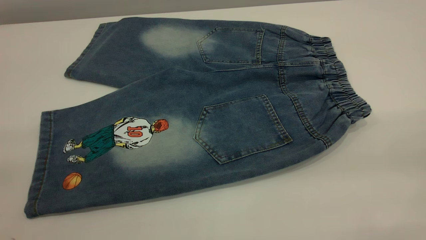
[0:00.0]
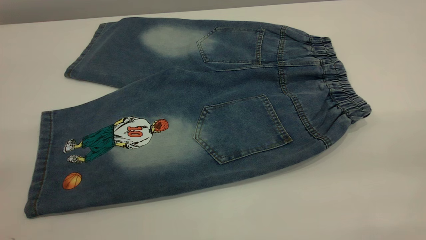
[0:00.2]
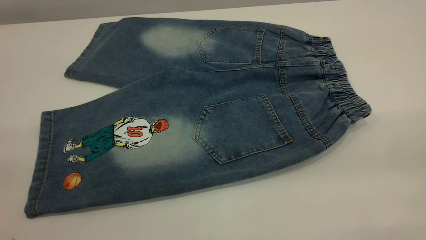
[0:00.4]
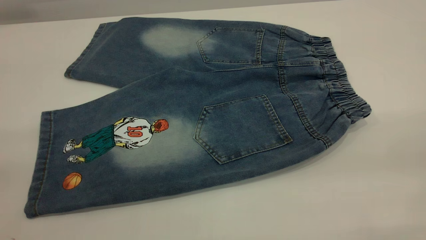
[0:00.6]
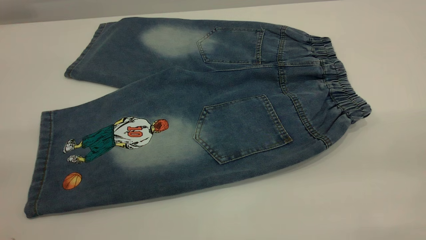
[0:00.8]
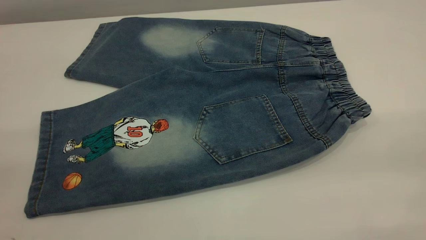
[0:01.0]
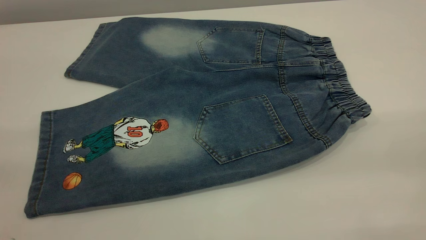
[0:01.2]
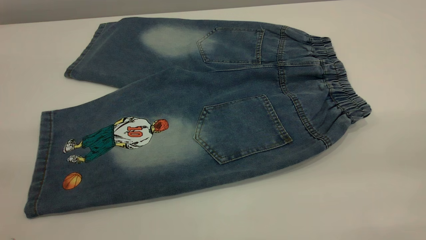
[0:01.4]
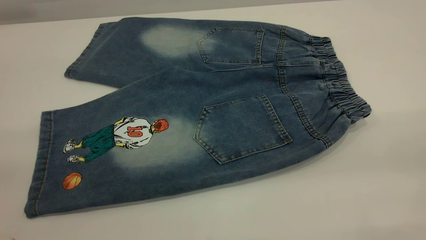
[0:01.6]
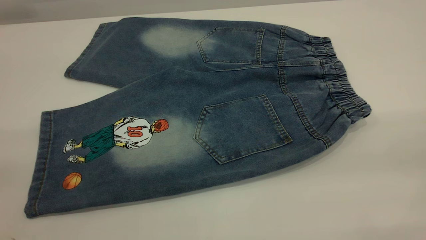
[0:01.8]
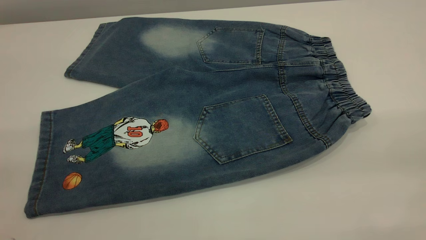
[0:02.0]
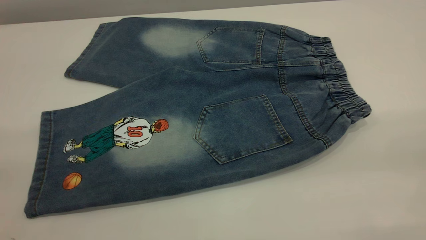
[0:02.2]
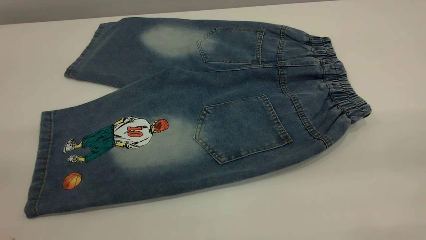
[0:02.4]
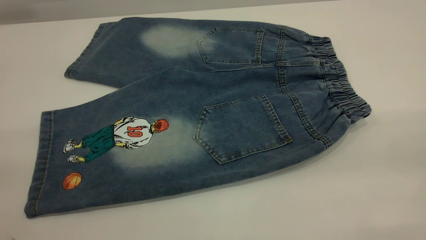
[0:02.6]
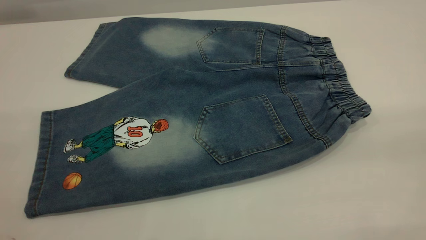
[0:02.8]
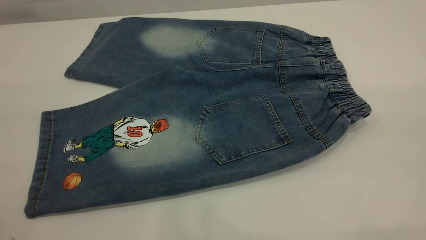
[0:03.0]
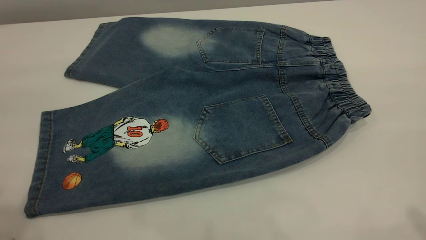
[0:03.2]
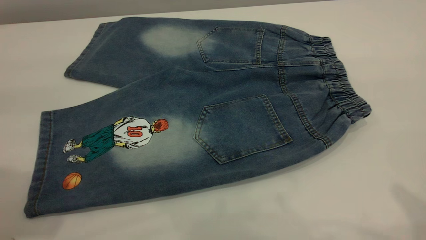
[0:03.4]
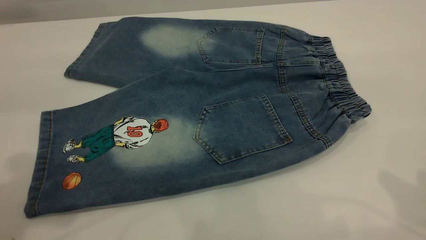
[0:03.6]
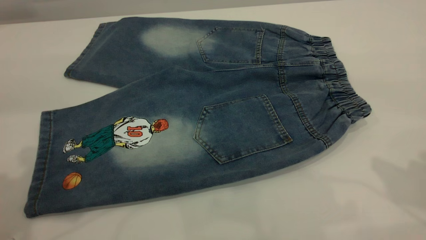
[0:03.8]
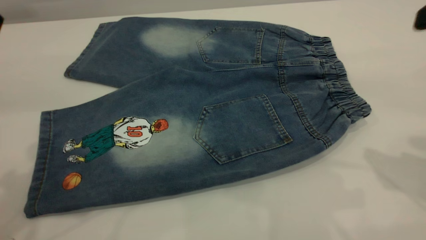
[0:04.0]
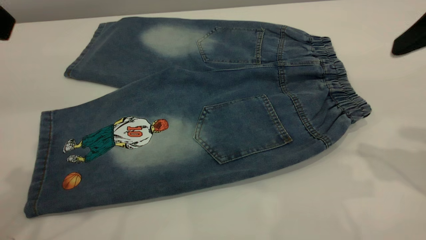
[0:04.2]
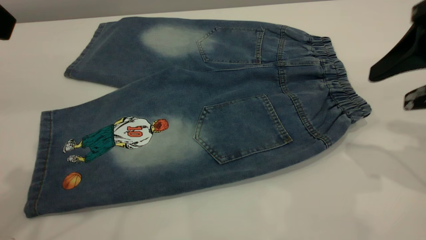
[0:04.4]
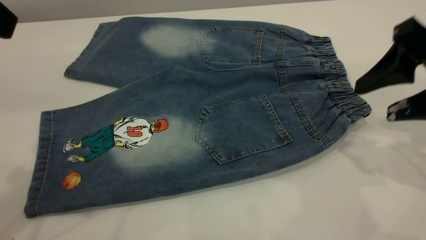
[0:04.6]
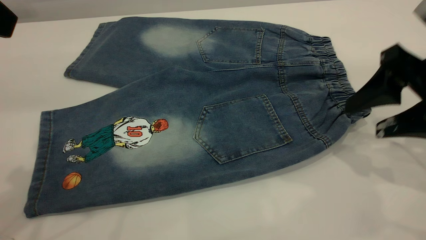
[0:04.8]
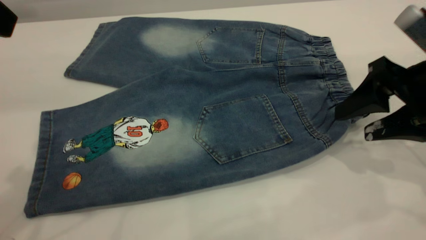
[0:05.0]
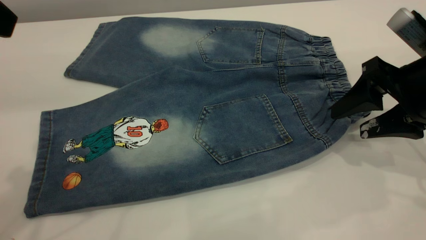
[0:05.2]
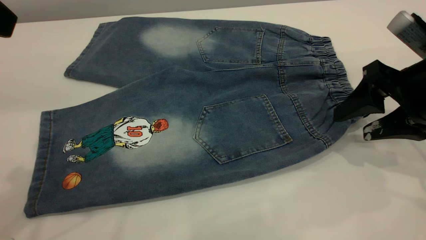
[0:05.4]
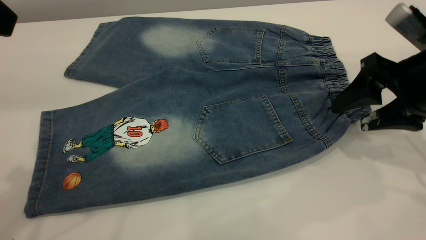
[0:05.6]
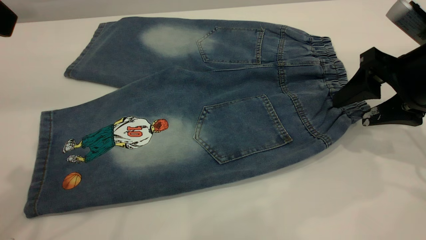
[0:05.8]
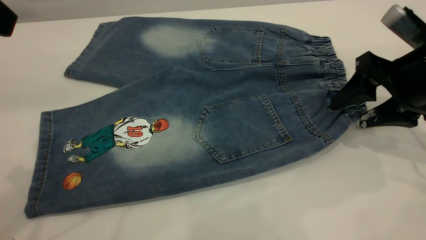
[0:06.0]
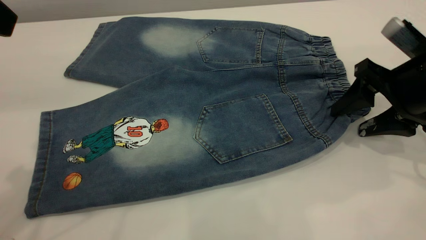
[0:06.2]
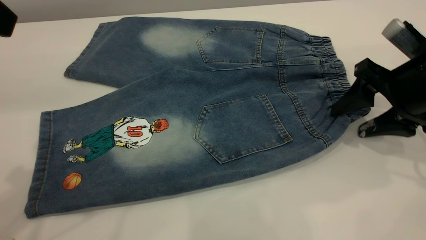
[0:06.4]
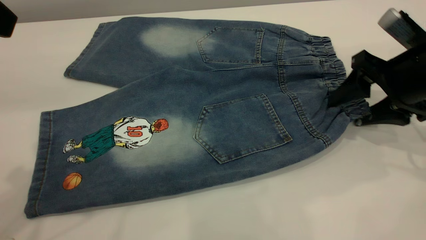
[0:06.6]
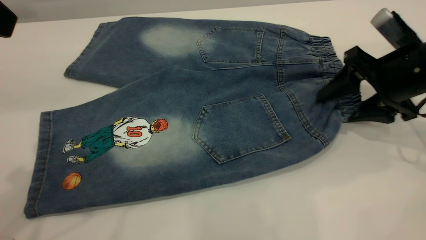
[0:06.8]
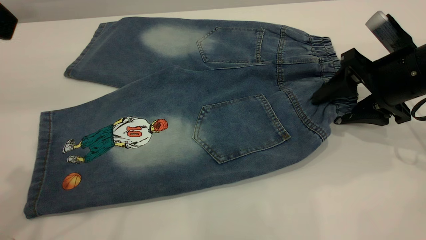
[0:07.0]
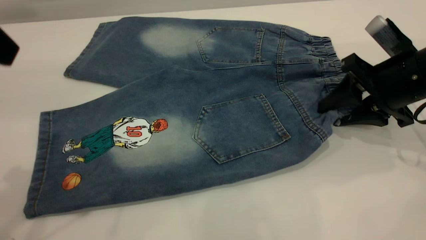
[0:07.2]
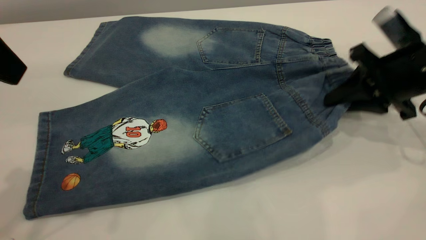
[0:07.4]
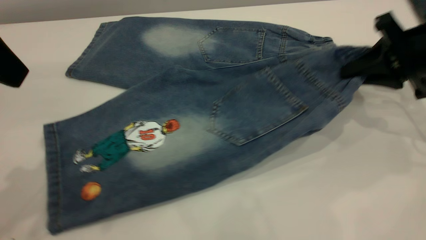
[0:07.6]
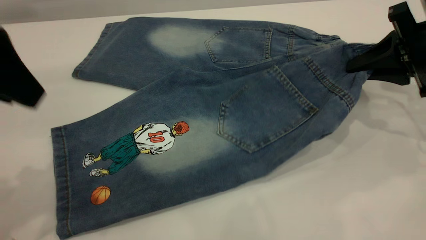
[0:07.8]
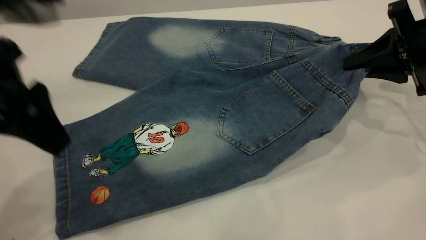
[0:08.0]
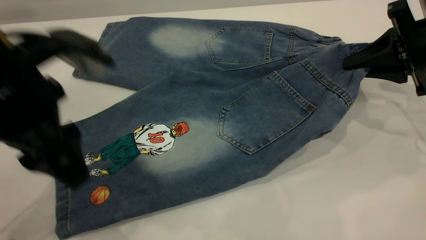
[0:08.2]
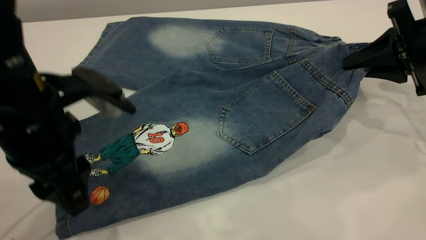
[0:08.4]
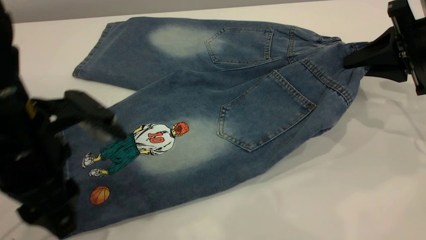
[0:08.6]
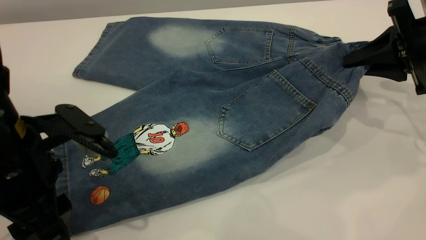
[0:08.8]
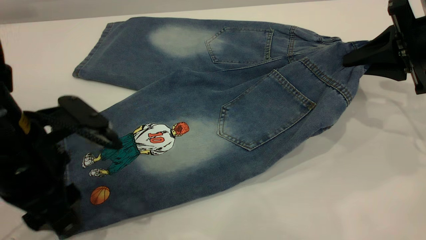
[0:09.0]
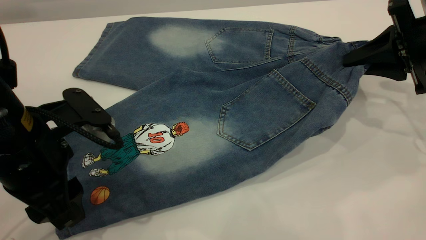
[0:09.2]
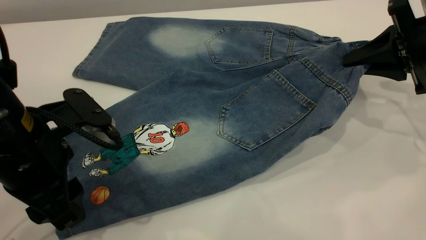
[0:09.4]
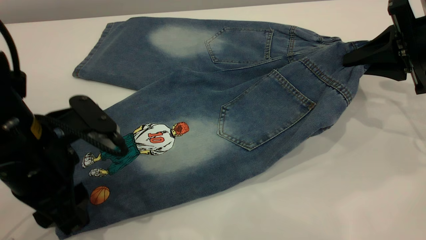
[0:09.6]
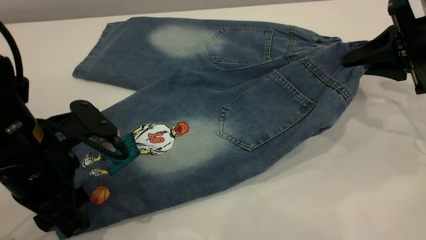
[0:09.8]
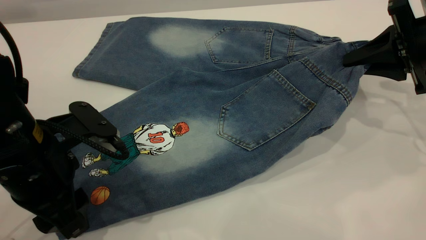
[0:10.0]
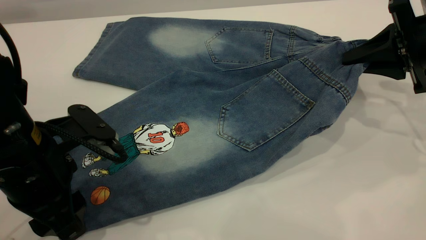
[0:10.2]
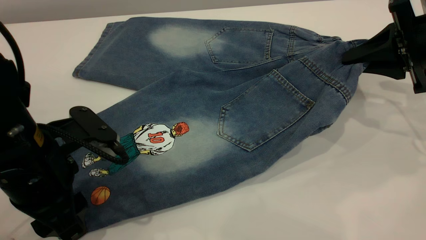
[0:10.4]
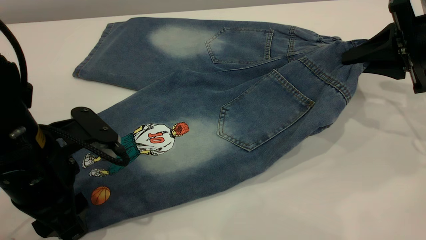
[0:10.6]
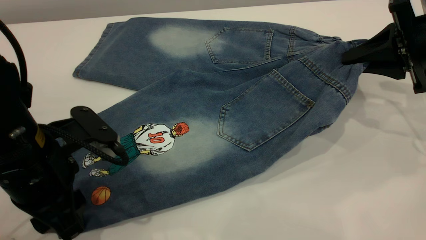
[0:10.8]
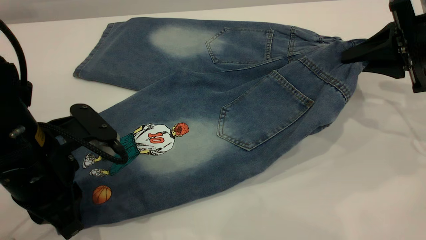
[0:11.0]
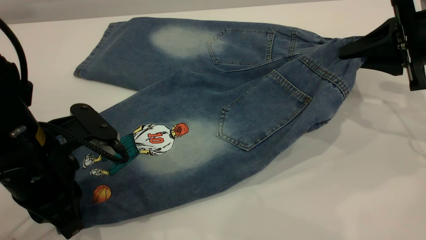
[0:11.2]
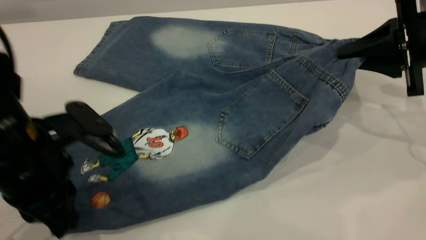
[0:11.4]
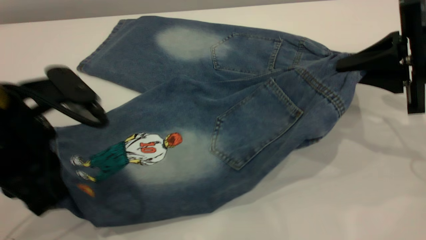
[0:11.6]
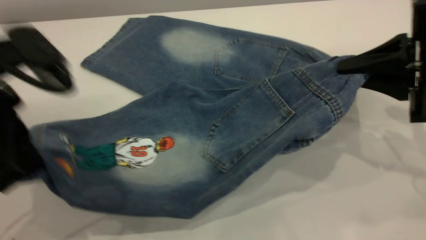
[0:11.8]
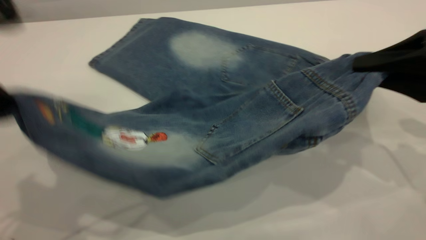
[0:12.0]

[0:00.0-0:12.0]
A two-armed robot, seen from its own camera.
0:00.0 to 0:01.6: Neither gripper changes place.
0:03.0 to 0:04.4: The left gripper travels forward and downward by approximately 15 cm. The right gripper shifts about 25 cm forward and downward.
0:04.4 to 0:06.0: The right gripper goes about 10 cm downward and forward.
0:06.0 to 0:07.6: The right gripper closes up.
0:07.6 to 0:09.0: The left gripper moves downward, about 15 cm.
0:09.0 to 0:10.4: The grippers move only a little.
0:10.4 to 0:12.0: The left gripper moves upward, roughly 15 cm, and closes its fingers. Meanwhile the right gripper travels backward by approximately 10 cm.

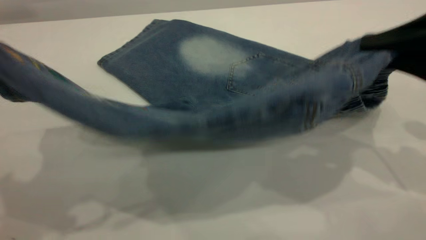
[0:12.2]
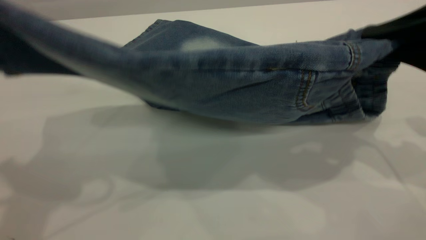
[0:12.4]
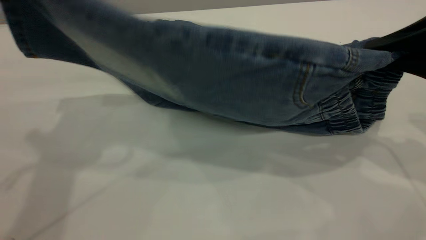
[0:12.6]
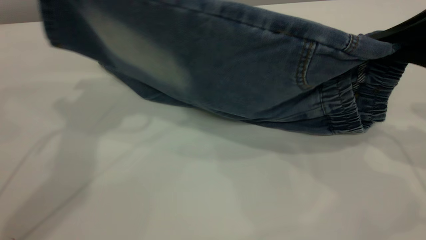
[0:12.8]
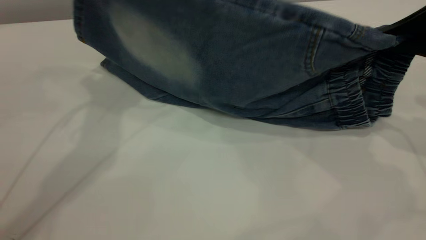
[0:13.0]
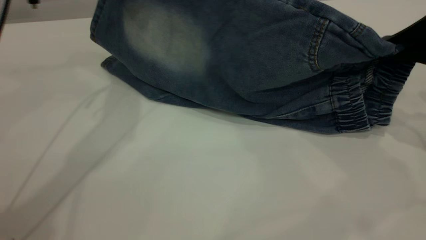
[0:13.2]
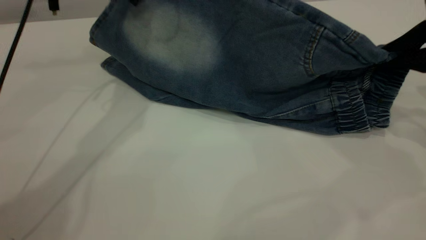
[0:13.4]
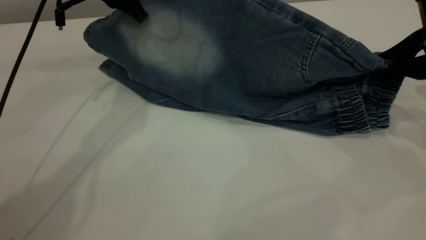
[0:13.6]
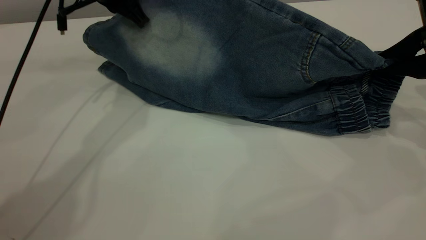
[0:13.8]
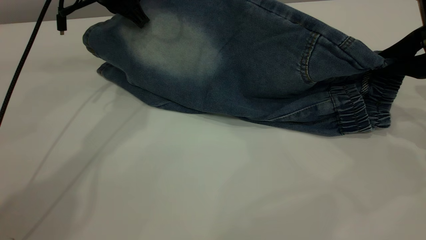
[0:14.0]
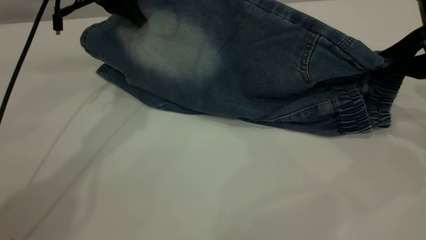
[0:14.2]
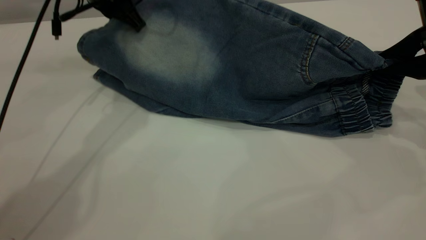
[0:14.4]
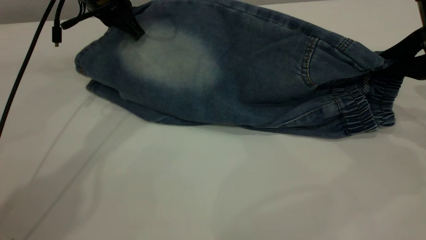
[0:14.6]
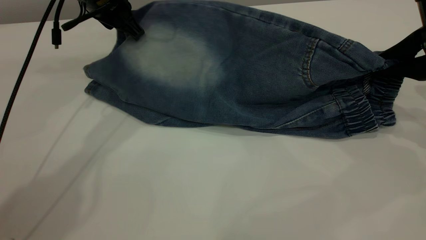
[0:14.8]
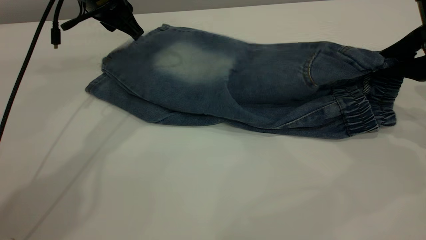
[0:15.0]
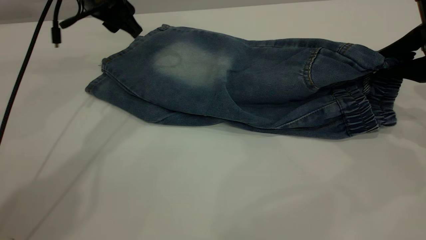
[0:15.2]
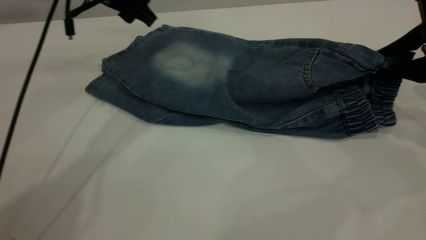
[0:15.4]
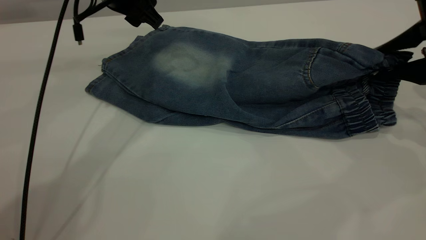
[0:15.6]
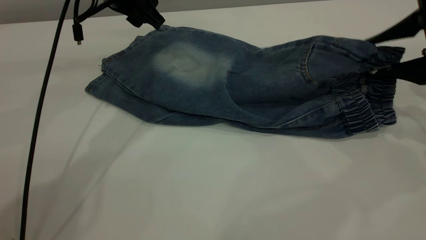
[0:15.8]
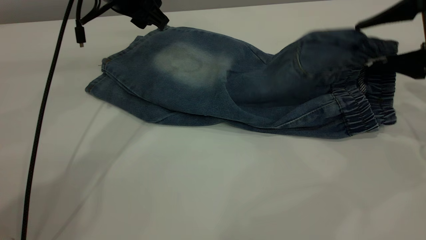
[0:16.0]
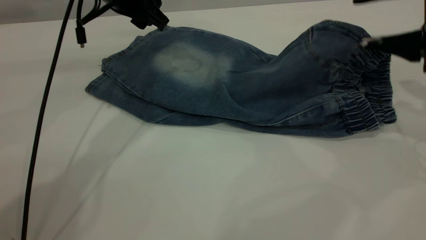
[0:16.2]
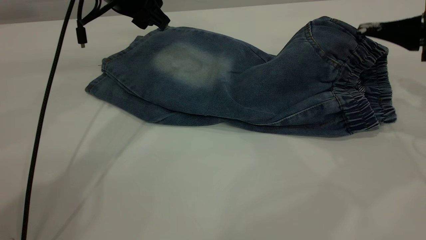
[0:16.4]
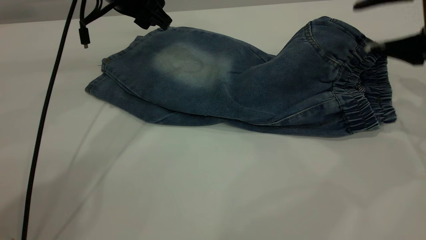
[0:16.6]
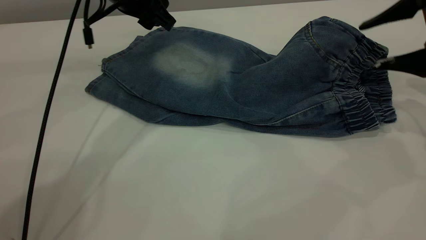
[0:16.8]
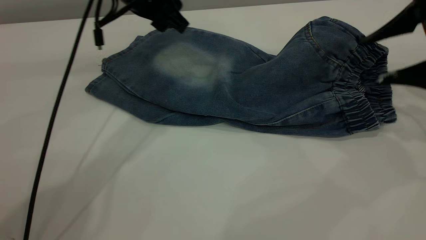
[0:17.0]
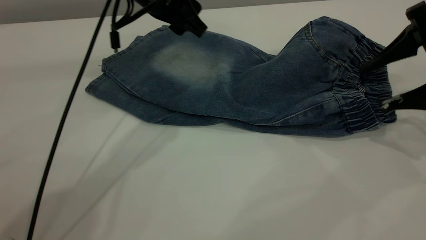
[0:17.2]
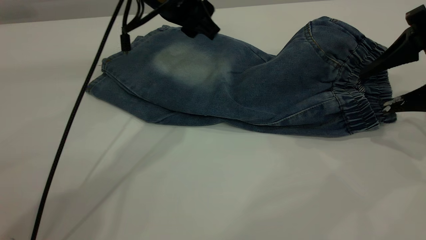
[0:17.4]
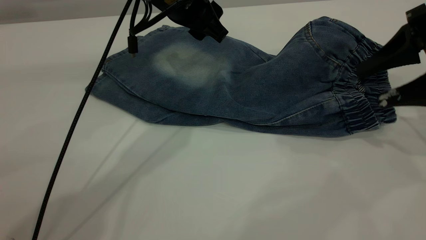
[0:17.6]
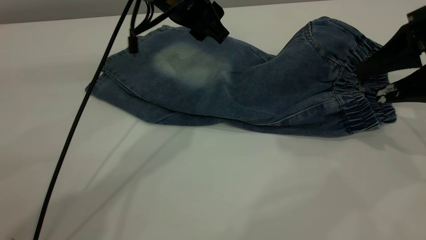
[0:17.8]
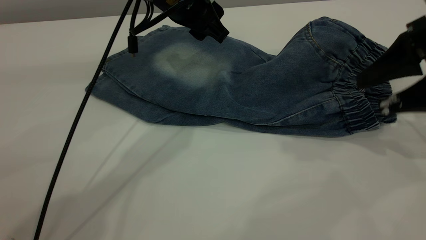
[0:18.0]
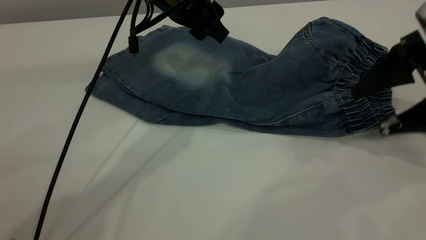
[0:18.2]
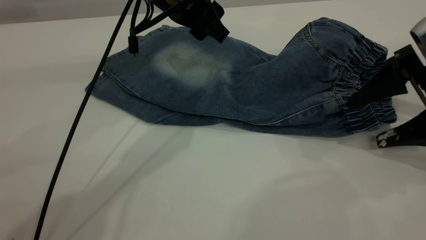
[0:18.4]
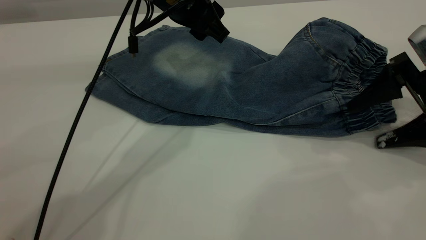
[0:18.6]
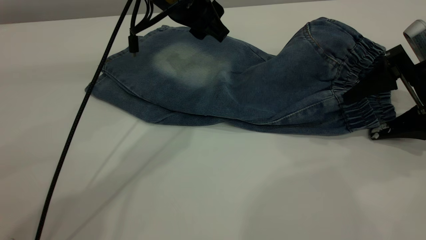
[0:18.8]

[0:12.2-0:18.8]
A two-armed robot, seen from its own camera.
Step, 0:12.2 to 0:16.2: Fold the bottom of the pants upward.
0:12.2 to 0:13.8: The right gripper moves forward, approximately 5 cm; the left gripper goes some 30 cm forward and downward.
0:13.8 to 0:15.4: The left gripper opens.
0:15.4 to 0:17.2: The left gripper is displaced to the right by approximately 5 cm. The right gripper opens.
0:17.2 to 0:18.8: The right gripper is displaced downward by approximately 5 cm.
